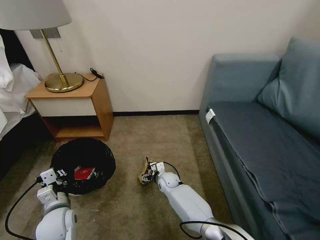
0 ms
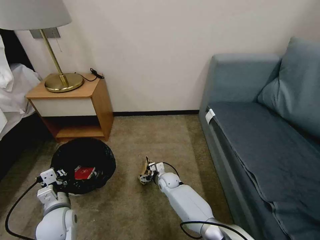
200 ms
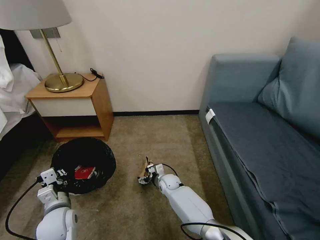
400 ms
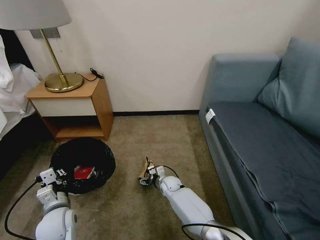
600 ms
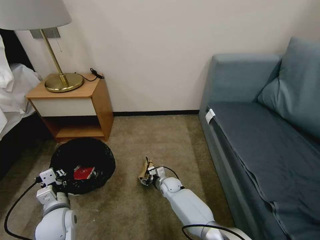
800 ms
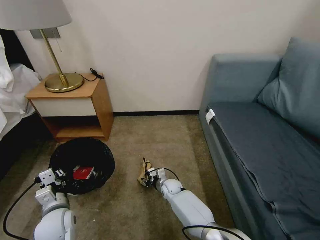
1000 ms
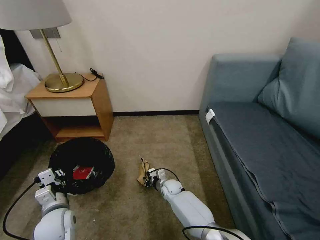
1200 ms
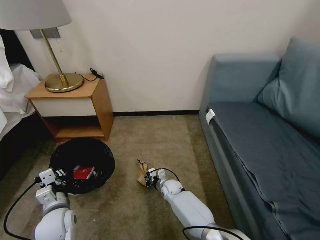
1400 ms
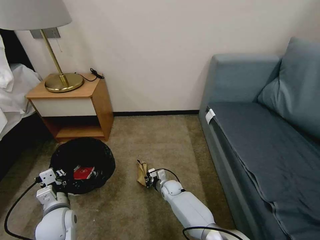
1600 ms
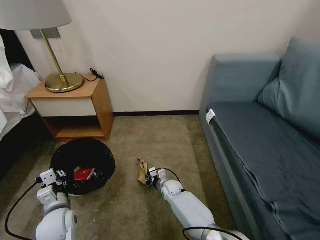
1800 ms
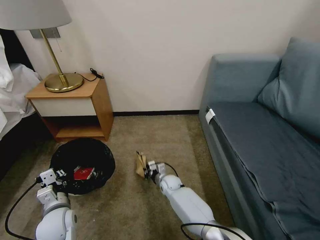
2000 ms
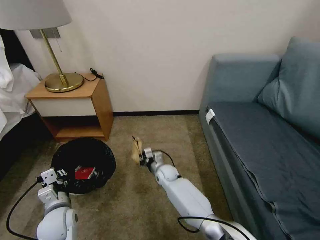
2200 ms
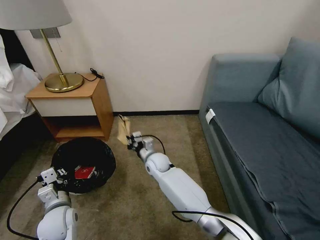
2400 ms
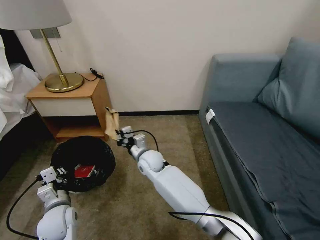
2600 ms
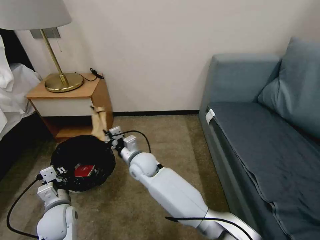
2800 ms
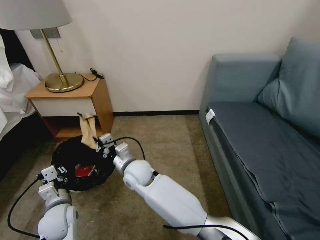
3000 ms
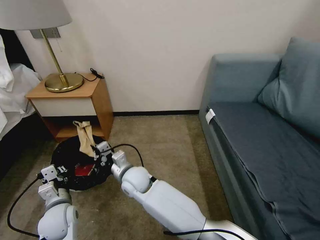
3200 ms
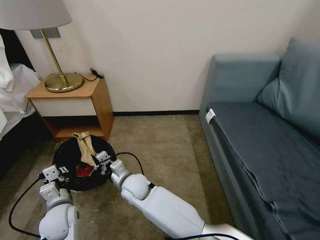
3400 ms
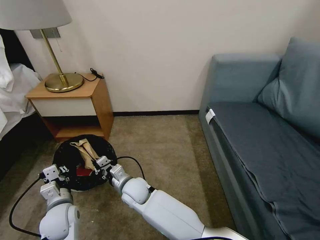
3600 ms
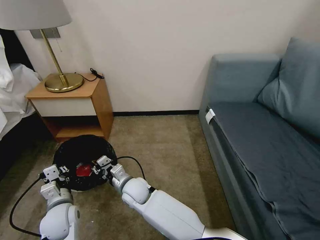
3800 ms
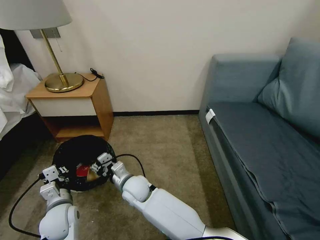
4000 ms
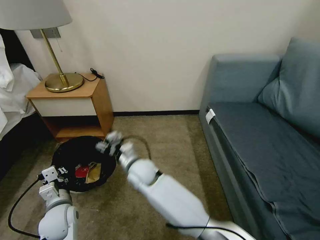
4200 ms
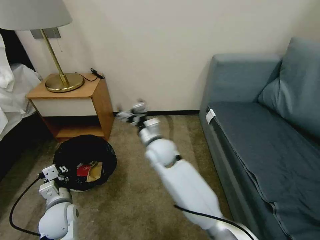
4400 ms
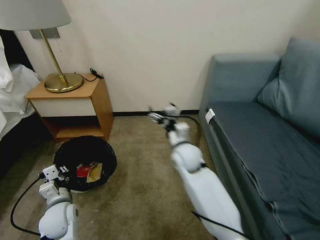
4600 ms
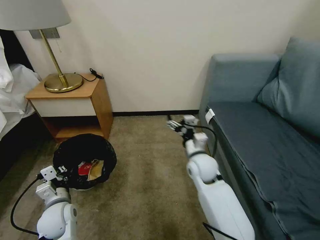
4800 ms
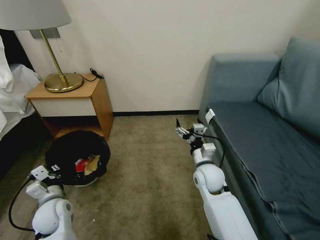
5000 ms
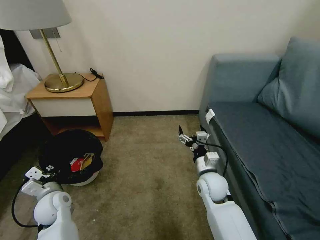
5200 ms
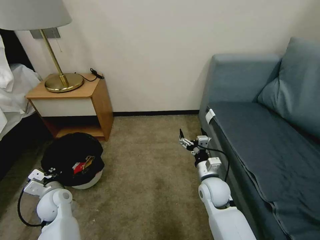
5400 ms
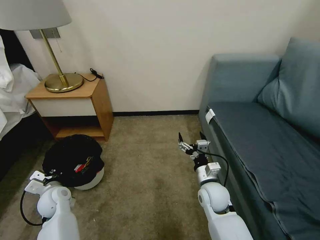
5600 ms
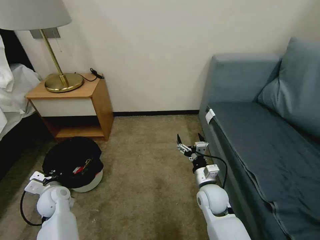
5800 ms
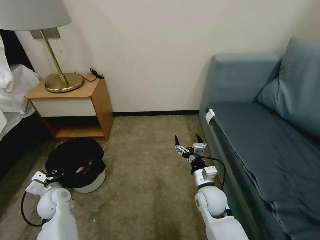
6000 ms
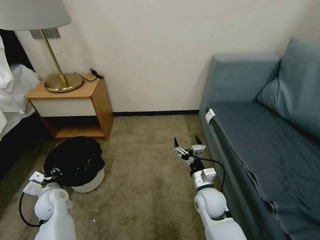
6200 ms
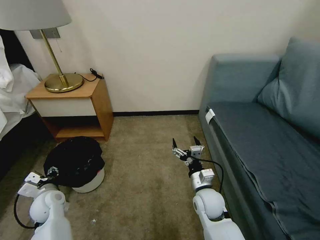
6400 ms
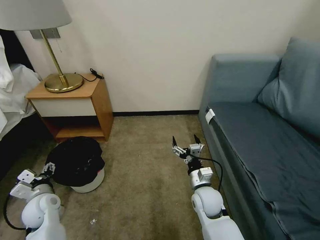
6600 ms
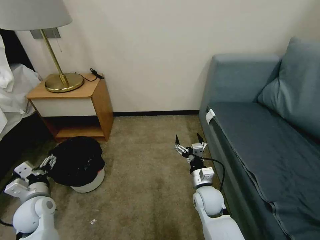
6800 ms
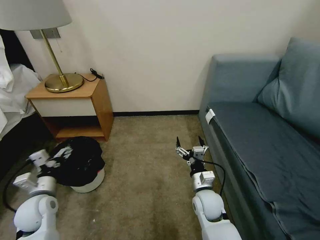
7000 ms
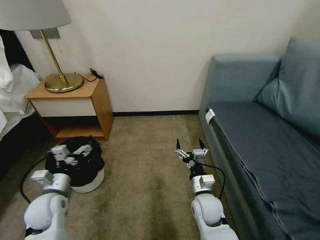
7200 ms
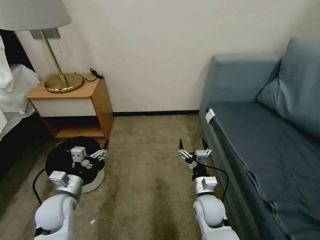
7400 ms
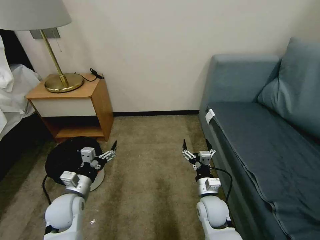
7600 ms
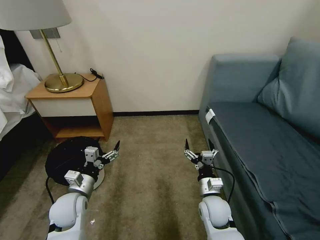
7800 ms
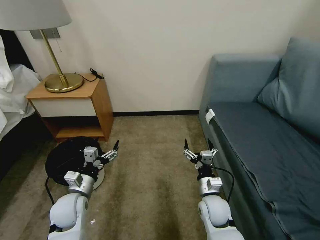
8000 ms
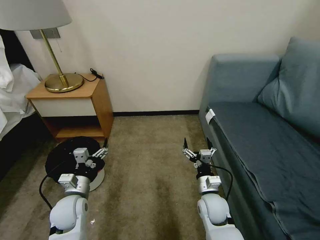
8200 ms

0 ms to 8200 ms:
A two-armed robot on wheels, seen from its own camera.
Task of the whole recording: Pick up the trash bin, then pick up the garbage on the floor and place it into the trash bin.
0 ms to 1600 ms: The right gripper closes its fingers.
1600 ms to 3200 ms: The right gripper shifts some 25 cm upward and to the left.
3200 ms to 5000 ms: The right gripper is displaced to the right by roughly 25 cm, and opens up.
5000 ms to 6600 ms: The right gripper heads backward and downward, covering some 10 cm. The left gripper opens up.
6600 ms to 8200 ms: The left gripper is displaced to the right by about 10 cm.

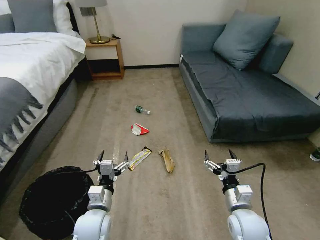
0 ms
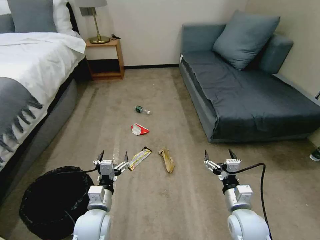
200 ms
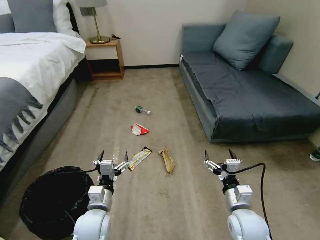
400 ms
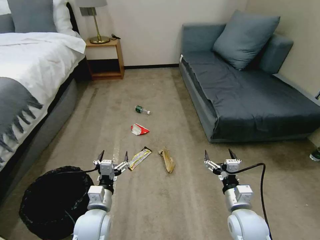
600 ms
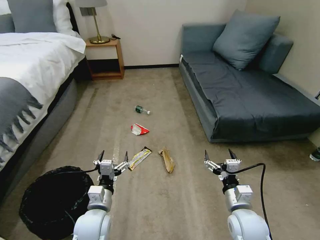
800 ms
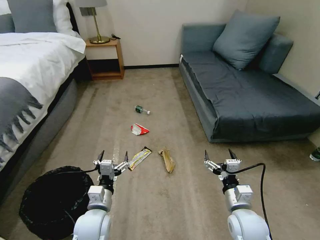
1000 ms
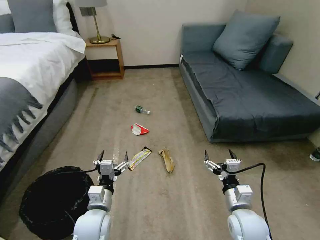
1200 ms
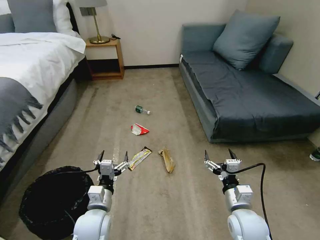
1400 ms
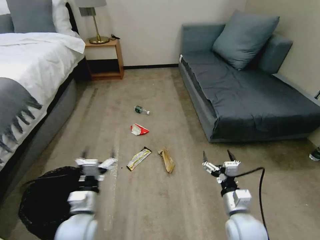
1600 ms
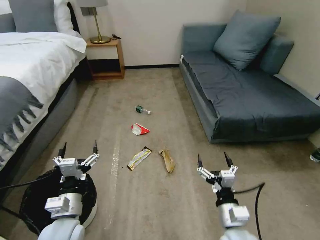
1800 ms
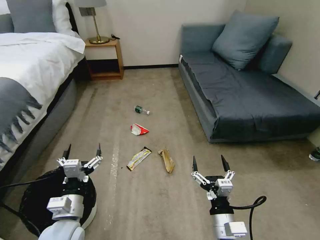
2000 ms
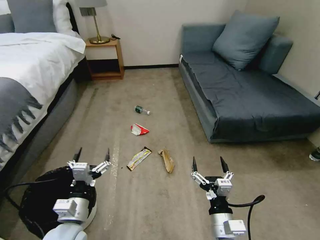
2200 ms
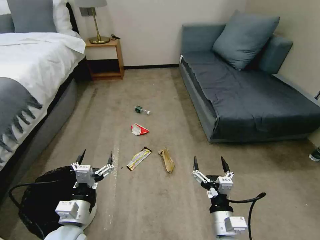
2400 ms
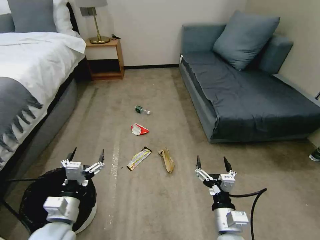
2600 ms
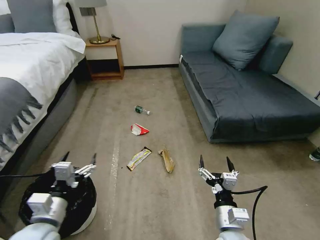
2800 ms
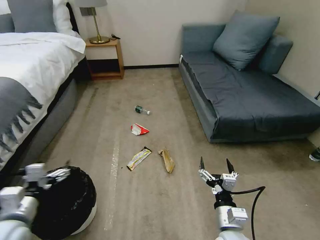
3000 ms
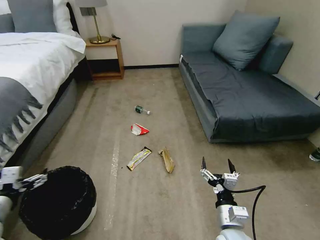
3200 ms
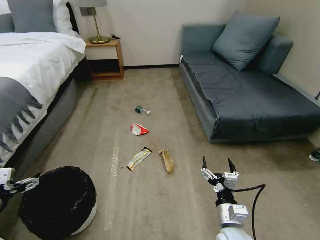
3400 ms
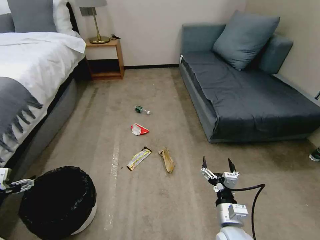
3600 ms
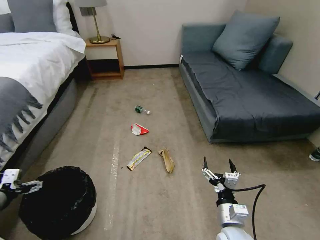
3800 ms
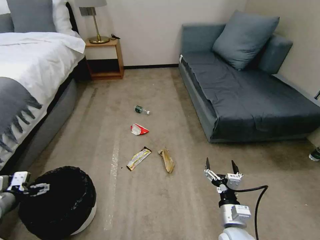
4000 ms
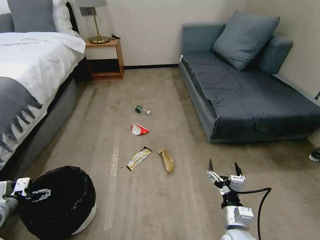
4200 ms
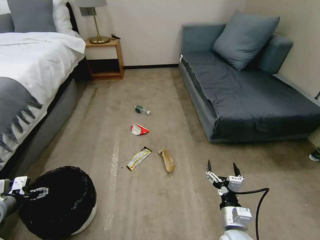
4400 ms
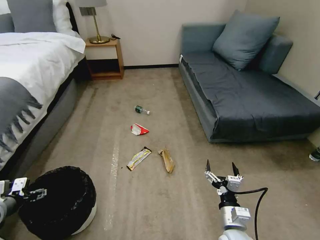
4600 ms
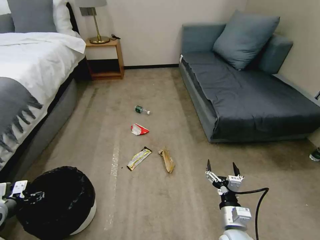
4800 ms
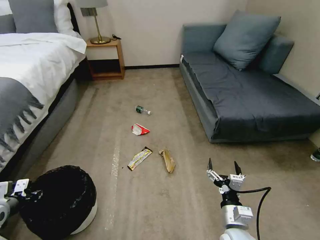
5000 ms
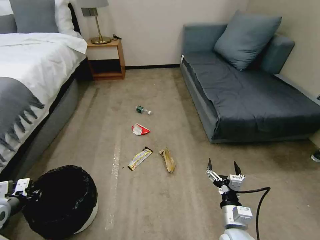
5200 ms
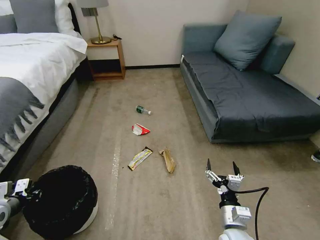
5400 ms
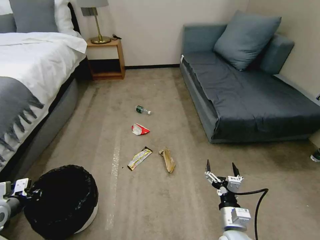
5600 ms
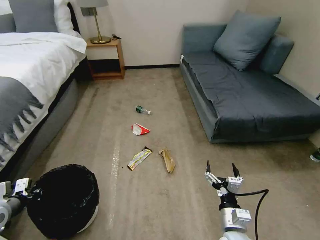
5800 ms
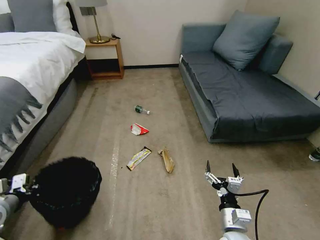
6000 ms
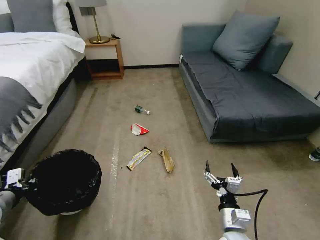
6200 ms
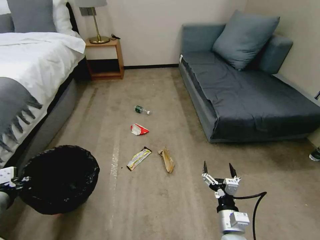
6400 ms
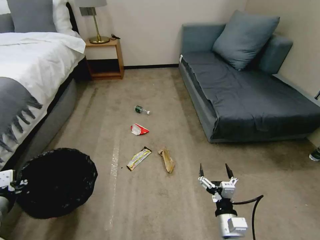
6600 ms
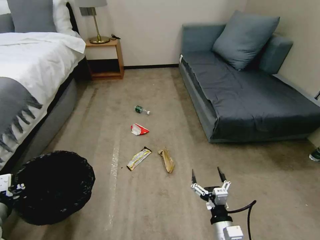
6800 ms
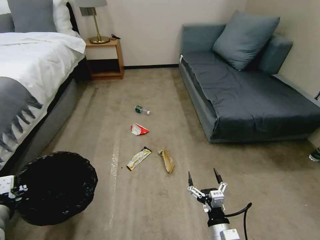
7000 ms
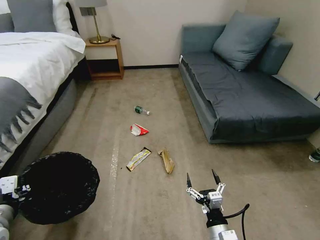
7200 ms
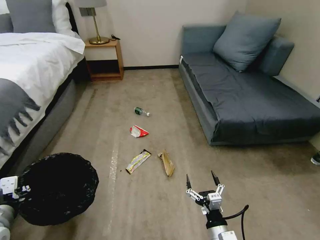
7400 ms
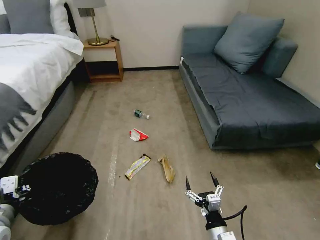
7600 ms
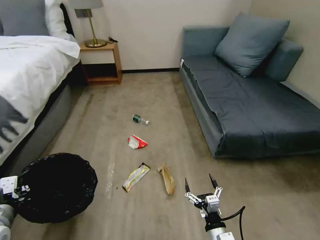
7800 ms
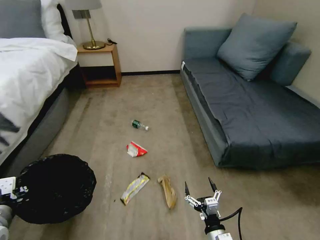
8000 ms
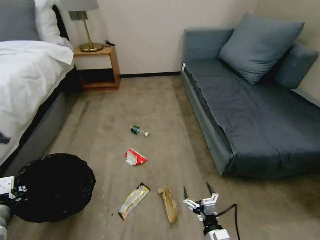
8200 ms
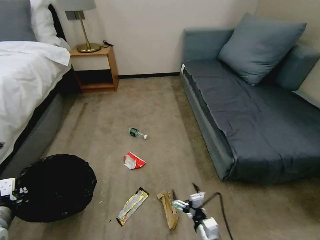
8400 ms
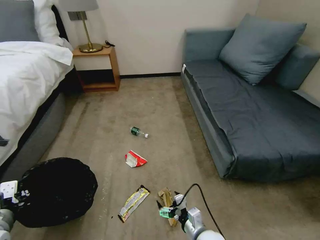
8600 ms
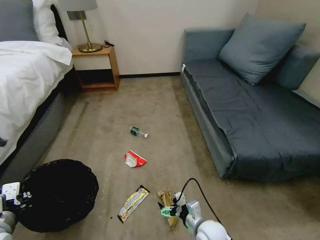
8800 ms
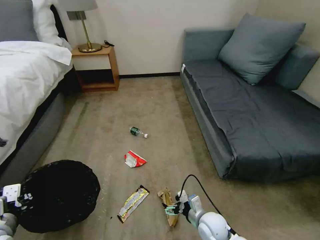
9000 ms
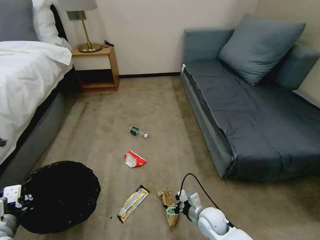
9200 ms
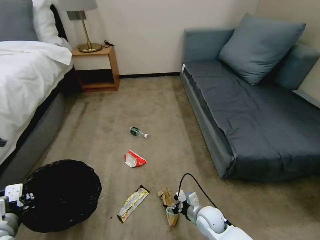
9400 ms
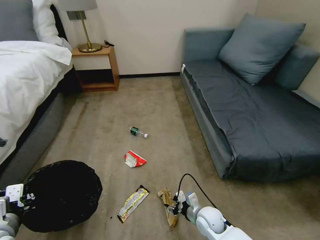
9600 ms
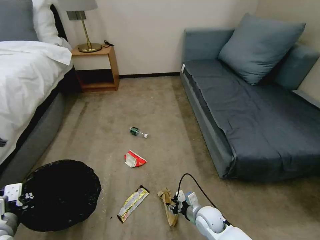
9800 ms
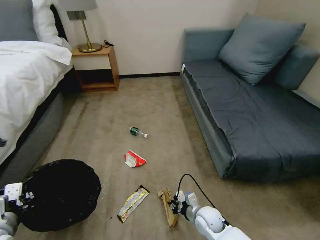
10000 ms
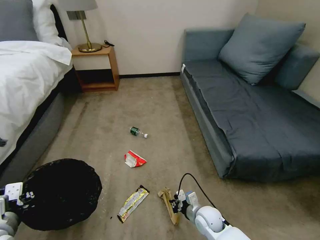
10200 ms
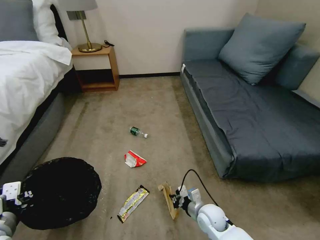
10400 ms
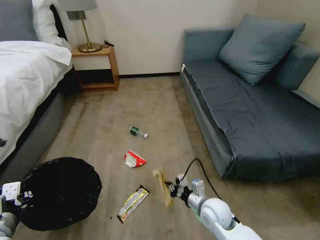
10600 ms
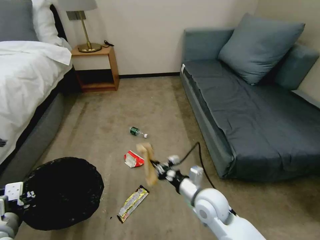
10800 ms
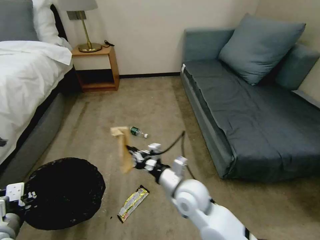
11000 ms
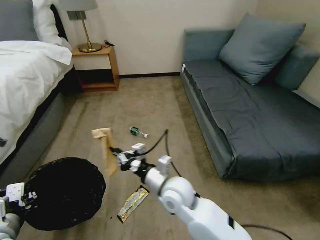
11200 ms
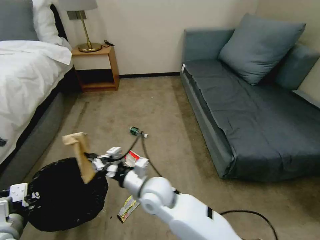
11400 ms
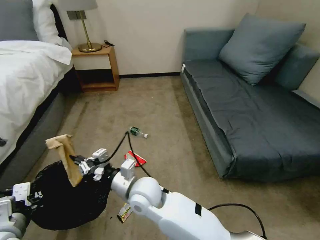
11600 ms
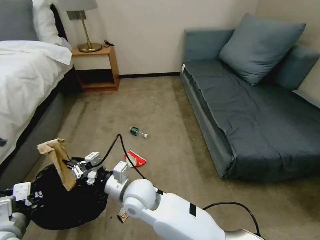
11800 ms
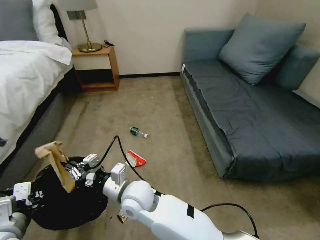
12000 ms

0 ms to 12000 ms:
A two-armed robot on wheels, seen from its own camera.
Task of the whole recording: Pick up the trash bin, then pick up the garbage on the floor and place it into the trash bin.
1600 ms to 3000 ms: The left gripper shifts approximately 15 cm to the left and upward.
3000 ms to 4400 ms: The left gripper moves to the left, approximately 15 cm.
4400 ms to 6000 ms: The left gripper closes its fingers.
6000 ms to 7600 ms: The right gripper moves about 5 cm; the left gripper shifts some 10 cm to the right and backward.
7600 ms to 9000 ms: The right gripper shifts some 10 cm forward.
9000 ms to 10400 ms: The right gripper closes its fingers.
10400 ms to 12000 ms: The right gripper is displaced to the left and upward by roughly 30 cm.

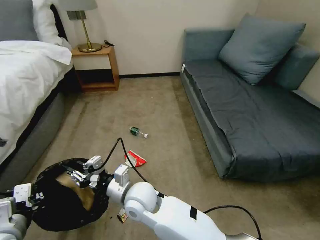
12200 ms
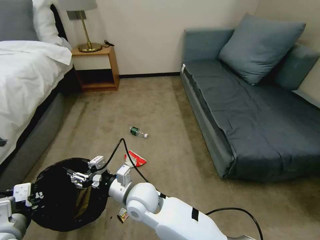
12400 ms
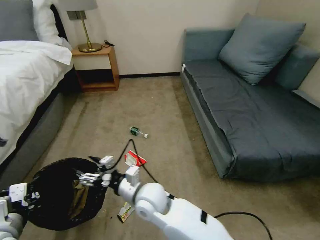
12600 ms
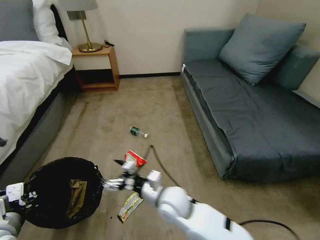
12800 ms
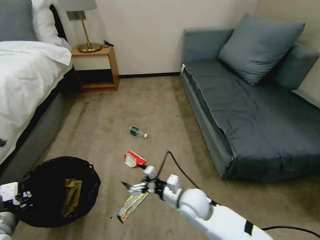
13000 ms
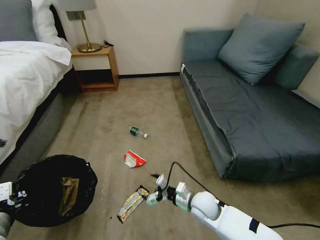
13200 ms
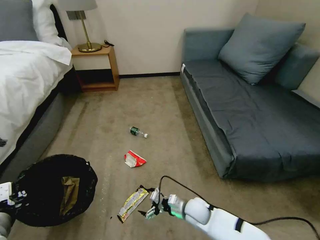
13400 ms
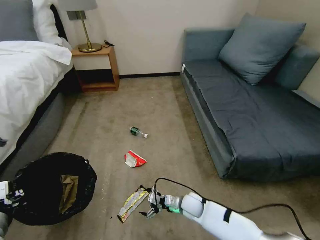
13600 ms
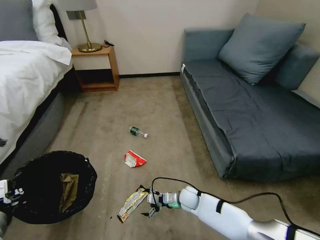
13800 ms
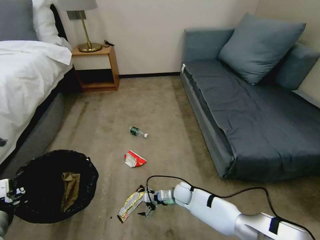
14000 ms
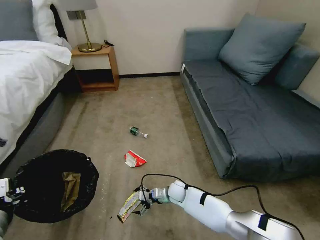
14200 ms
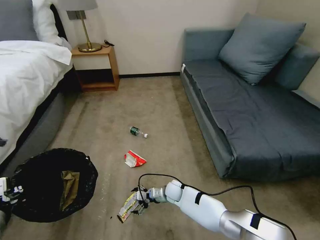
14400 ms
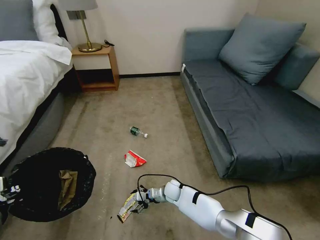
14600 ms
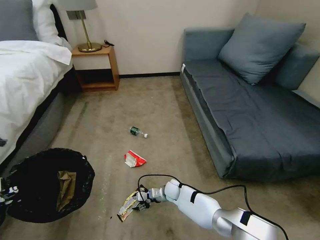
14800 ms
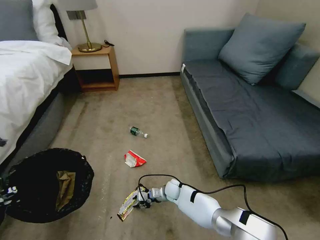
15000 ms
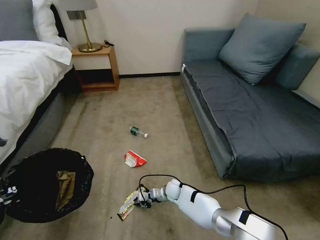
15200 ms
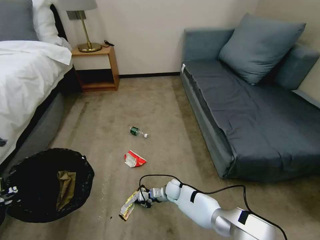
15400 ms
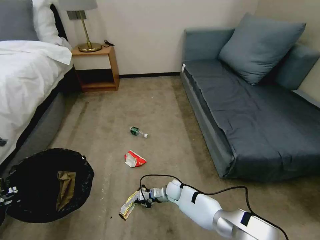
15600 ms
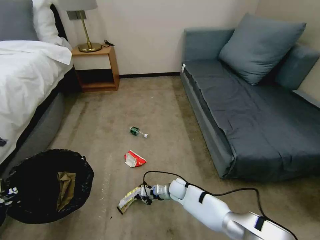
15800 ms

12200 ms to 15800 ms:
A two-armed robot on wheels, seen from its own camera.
Task of the whole recording: Pick up the trash bin, then pick up the garbage on the floor and place it into the trash bin.
12200 ms to 14000 ms: The right gripper is displaced downward, to the right and forward by approximately 30 cm, and opens up.
14000 ms to 15800 ms: The right gripper closes up.
